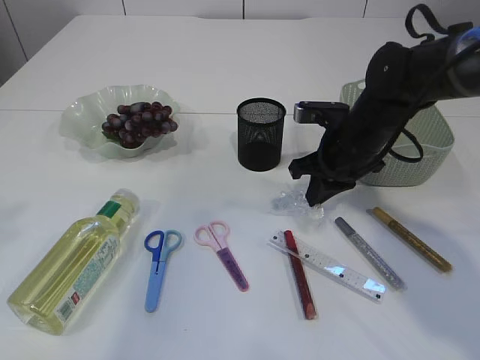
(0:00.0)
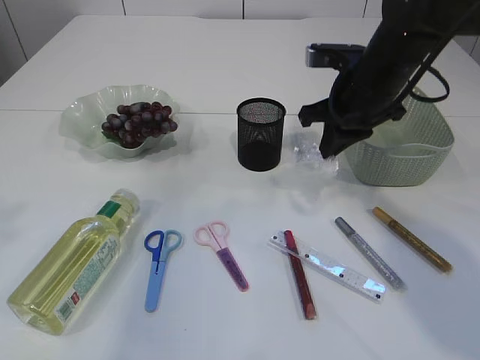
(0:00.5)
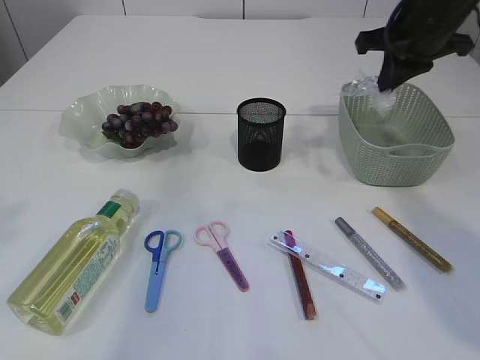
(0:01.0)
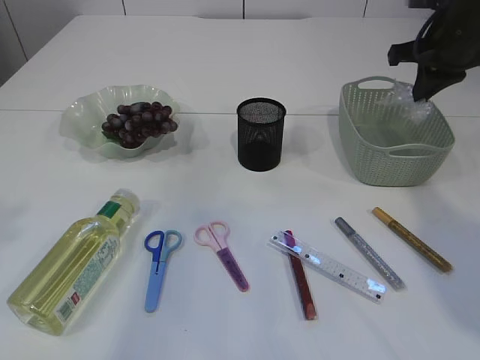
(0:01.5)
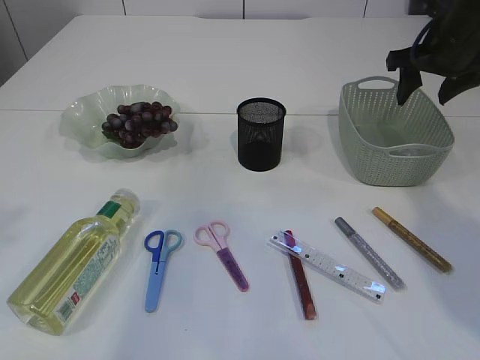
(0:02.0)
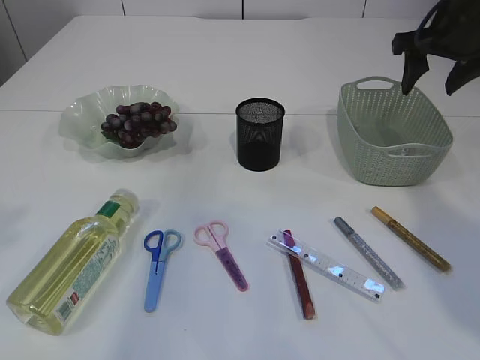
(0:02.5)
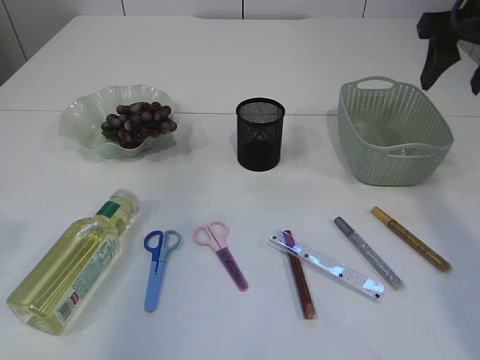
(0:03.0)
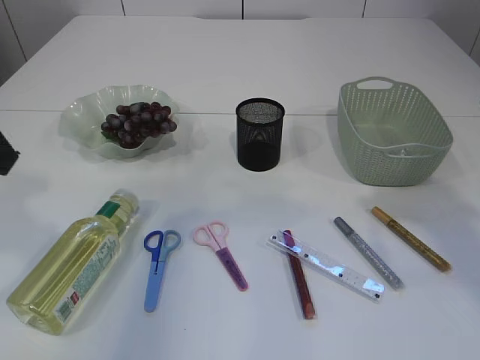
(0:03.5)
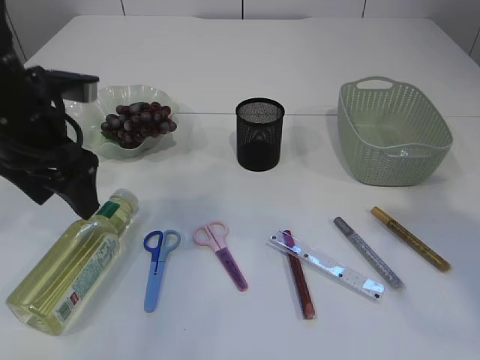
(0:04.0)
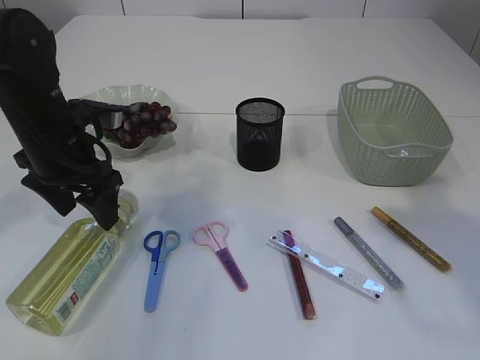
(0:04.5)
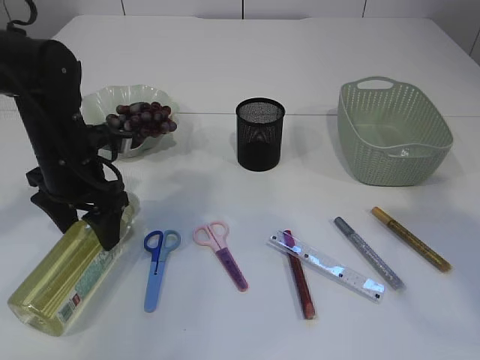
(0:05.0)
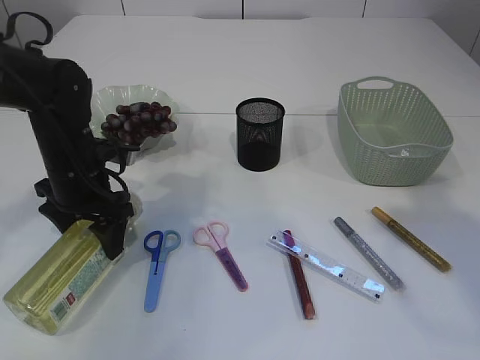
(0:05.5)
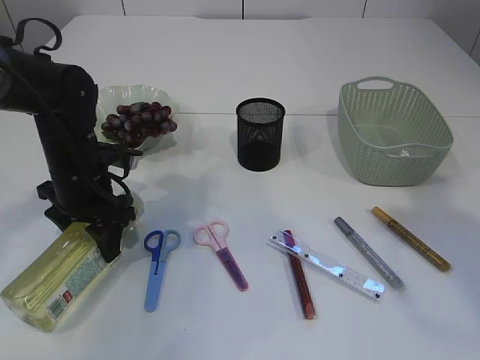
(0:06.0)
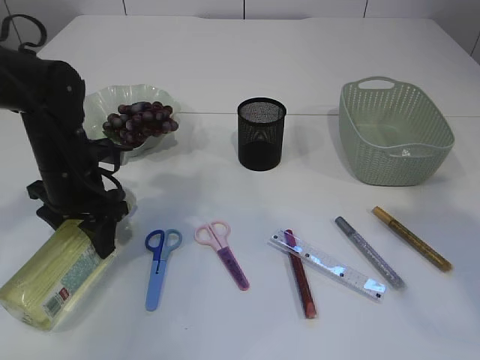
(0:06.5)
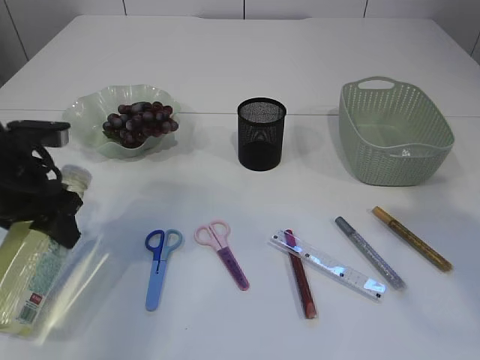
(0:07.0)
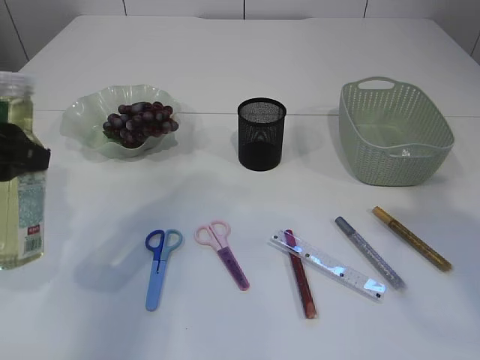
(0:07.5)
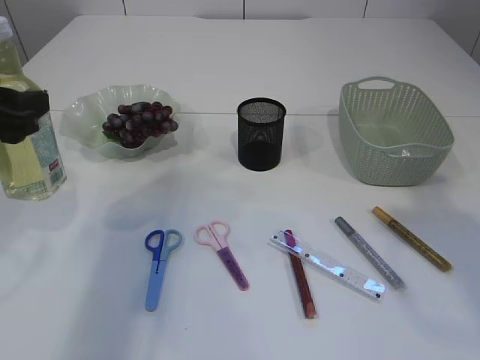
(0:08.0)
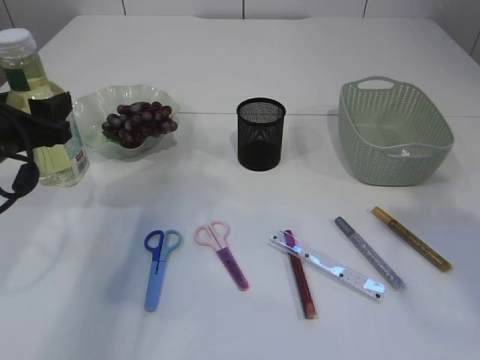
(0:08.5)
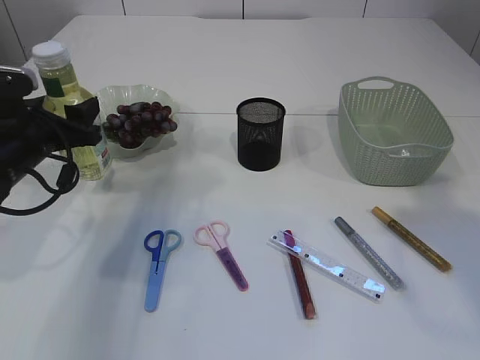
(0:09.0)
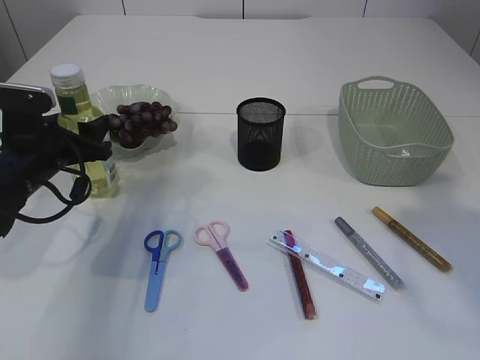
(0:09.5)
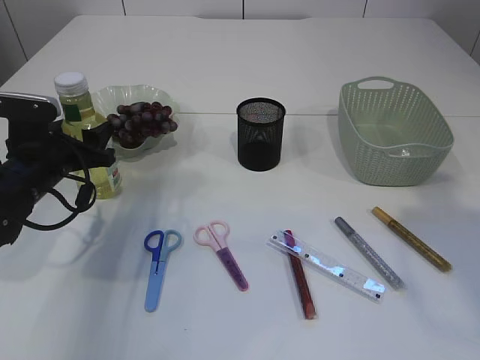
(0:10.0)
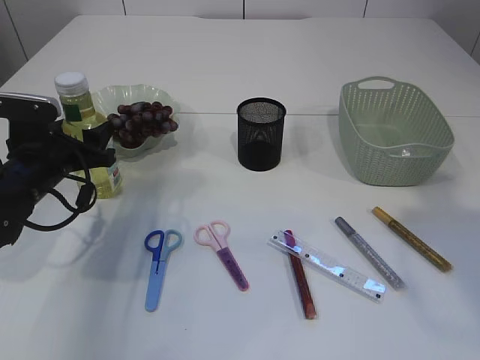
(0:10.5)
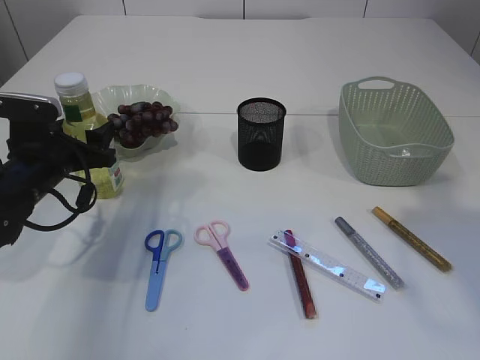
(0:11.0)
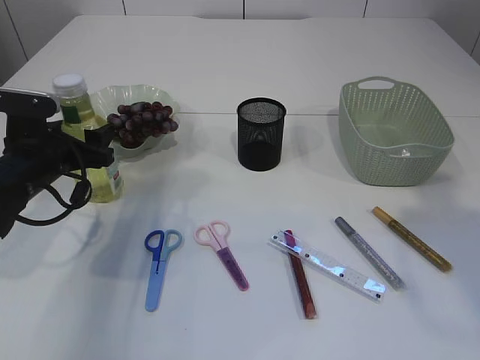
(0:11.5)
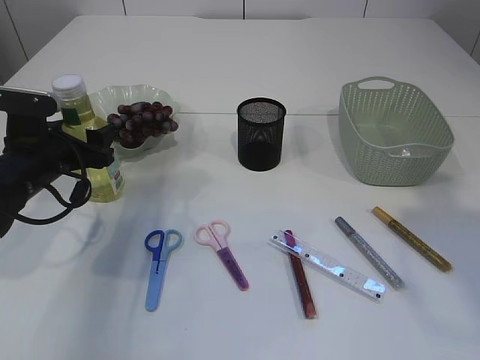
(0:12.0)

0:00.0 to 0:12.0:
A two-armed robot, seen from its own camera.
Step, 0:00.5 to 0:02.0: Place the plastic in the basket.
Step, 0:02.5 to 0:07.0: Pick up the bottle with the left arm.
0:00.0 to 0:02.0: The right gripper shifts approximately 20 cm to the right, upward and forward, and opens.
0:02.0 to 0:04.0: The right gripper heads backward and upward, covering roughly 30 cm. The left gripper heads downward, forward and to the right, covering some 20 cm, and opens.
0:04.0 to 0:06.0: The left gripper goes about 10 cm downward.
0:06.0 to 0:08.0: The left gripper heads upward, backward and to the left, covering some 15 cm.
0:08.0 to 0:10.0: The left gripper is displaced downward and forward by some 15 cm.
0:10.0 to 0:12.0: The two grippers keep their place.

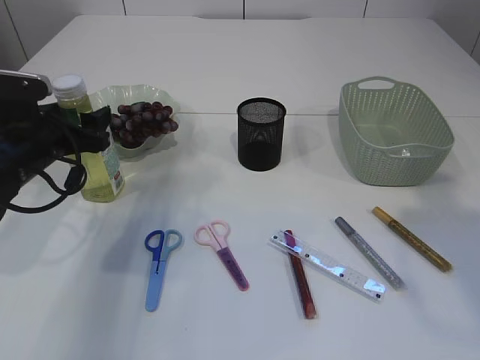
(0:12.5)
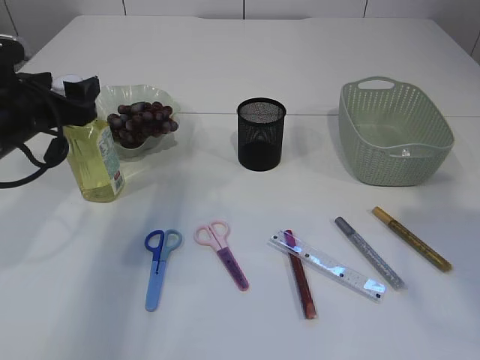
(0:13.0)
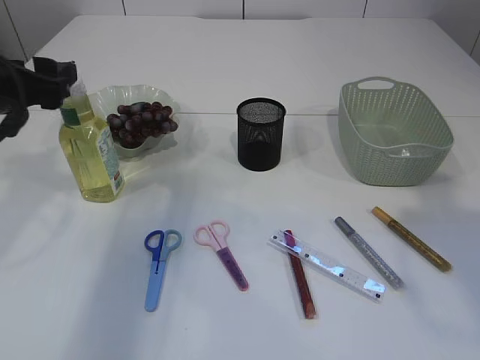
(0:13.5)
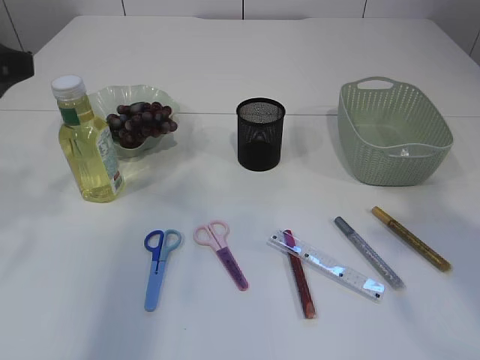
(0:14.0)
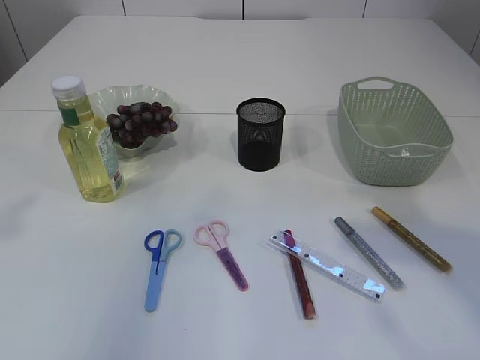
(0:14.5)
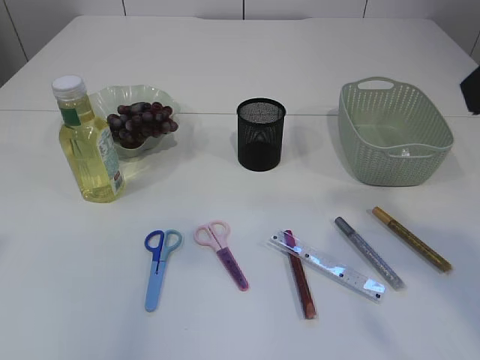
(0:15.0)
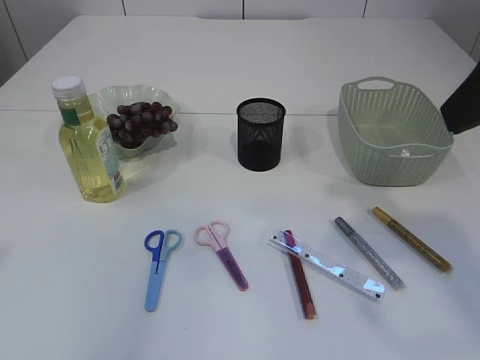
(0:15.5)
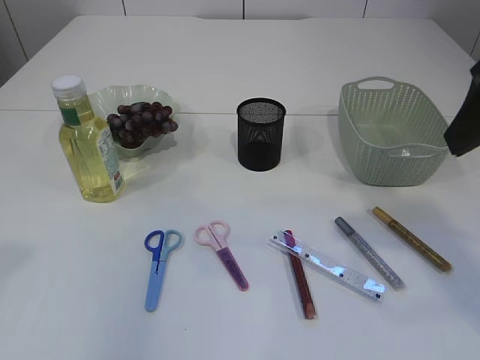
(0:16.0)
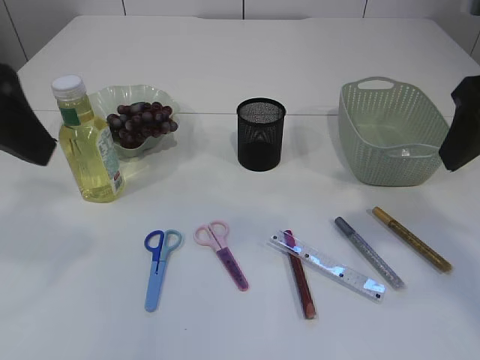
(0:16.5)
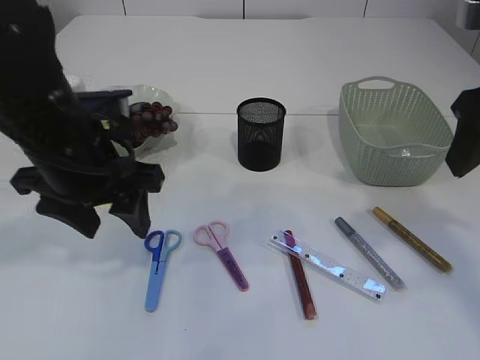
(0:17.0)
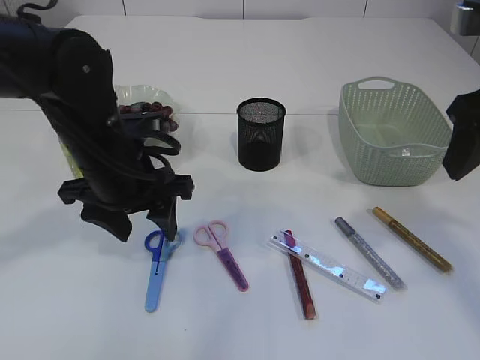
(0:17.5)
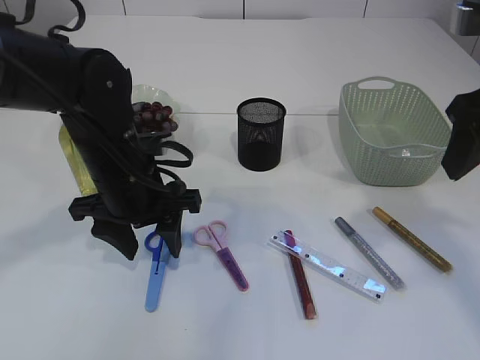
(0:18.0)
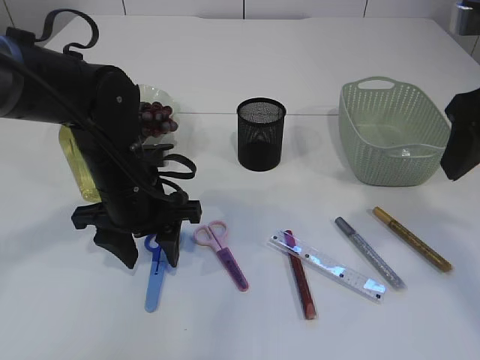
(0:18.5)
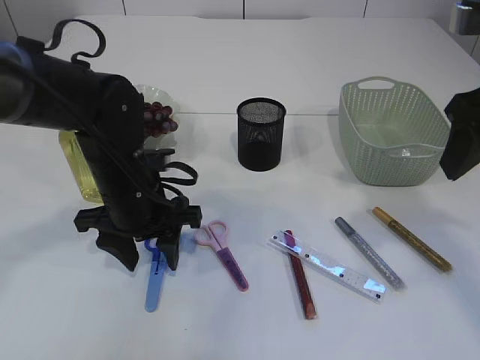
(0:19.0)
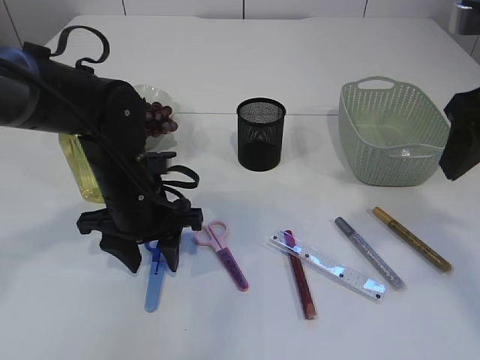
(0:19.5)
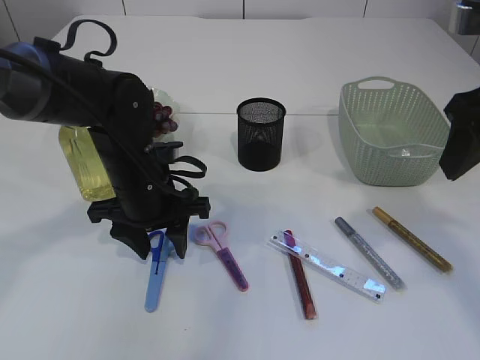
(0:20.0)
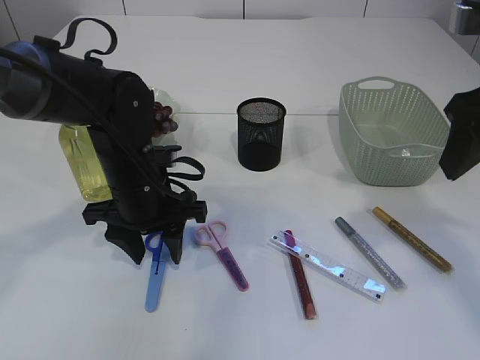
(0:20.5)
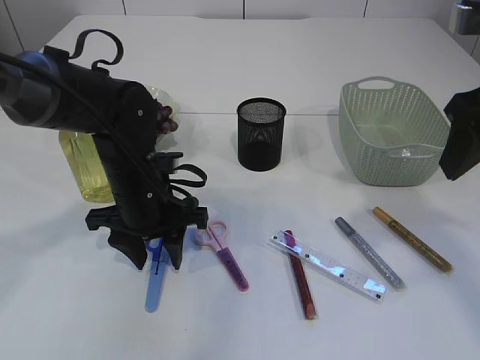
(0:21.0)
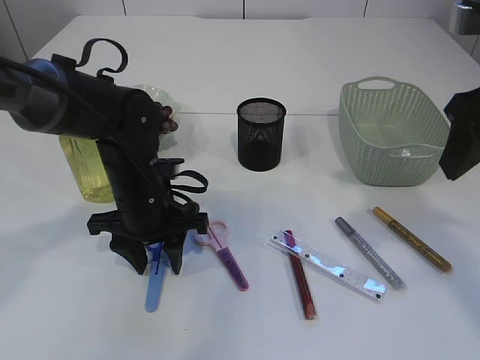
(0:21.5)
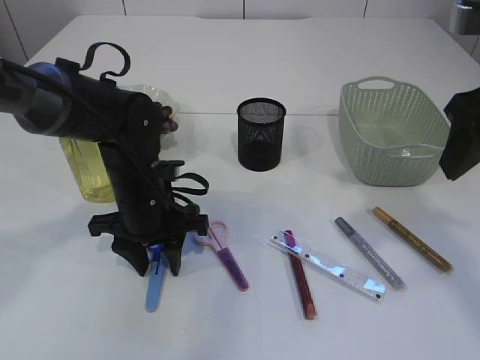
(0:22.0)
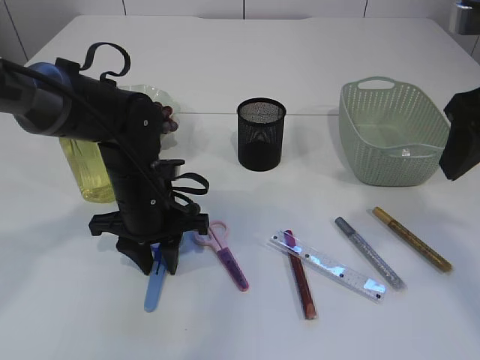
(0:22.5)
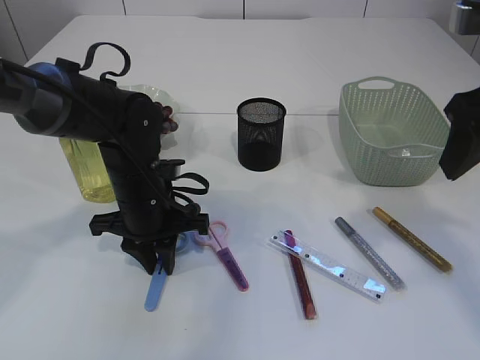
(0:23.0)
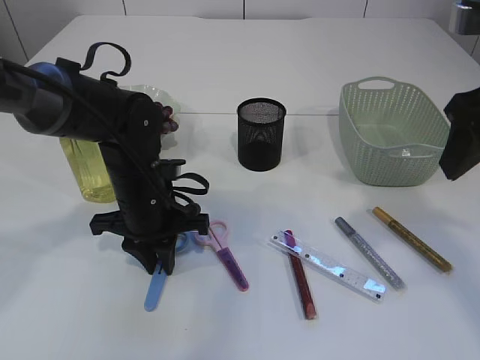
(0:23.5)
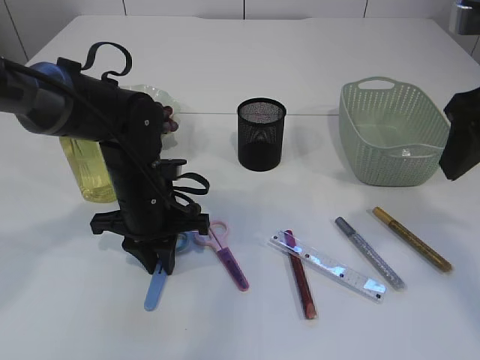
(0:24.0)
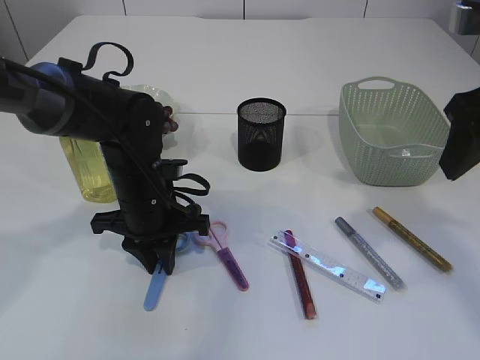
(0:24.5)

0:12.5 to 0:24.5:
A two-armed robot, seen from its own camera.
0:12.5 to 0:14.5: The left gripper heads upward and backward, covering approximately 30 cm. The right gripper ends up some 5 cm from where it was.
0:14.5 to 0:16.5: The right gripper goes about 10 cm forward and downward. The left gripper travels to the right by approximately 5 cm.
0:16.5 to 0:18.5: The left gripper shifts about 25 cm downward, forward and to the right.
0:18.5 to 0:22.5: There are only small adjustments of the grippers.
0:22.5 to 0:24.5: Neither gripper changes place.

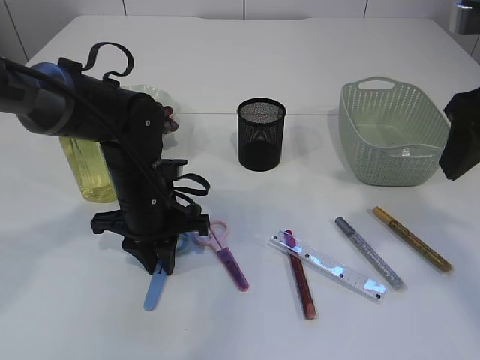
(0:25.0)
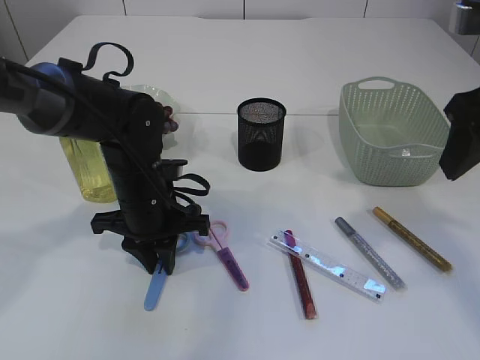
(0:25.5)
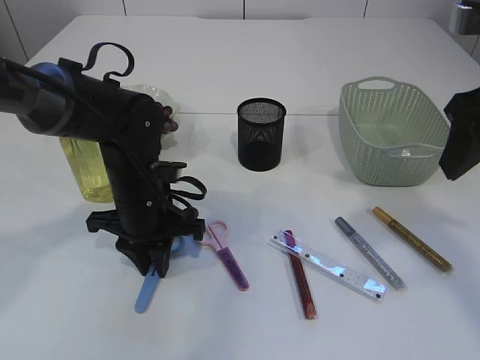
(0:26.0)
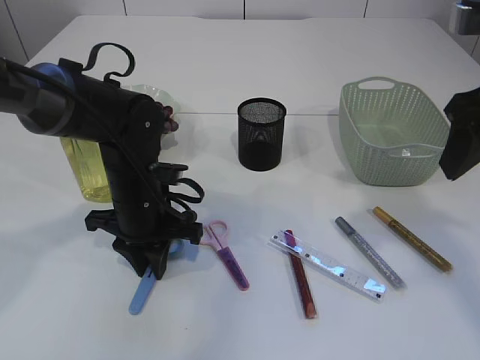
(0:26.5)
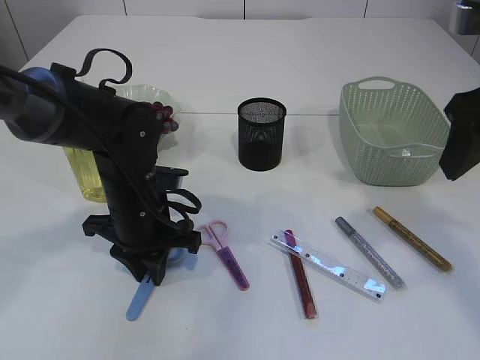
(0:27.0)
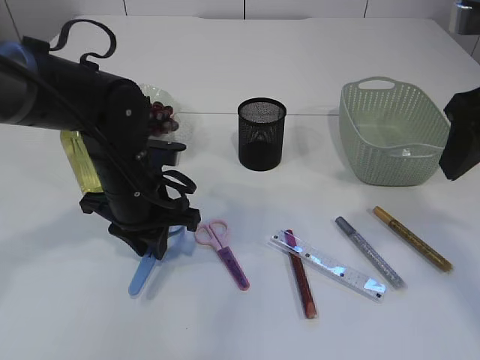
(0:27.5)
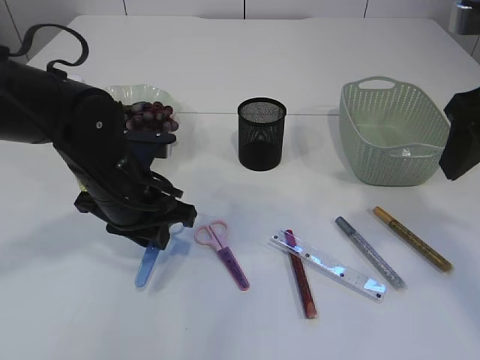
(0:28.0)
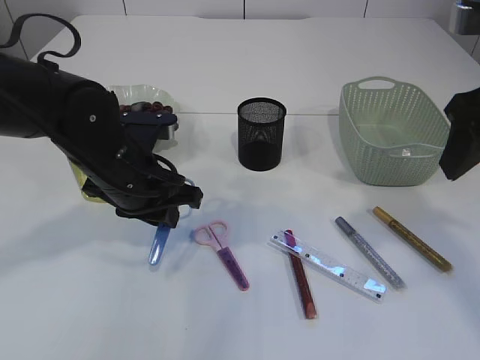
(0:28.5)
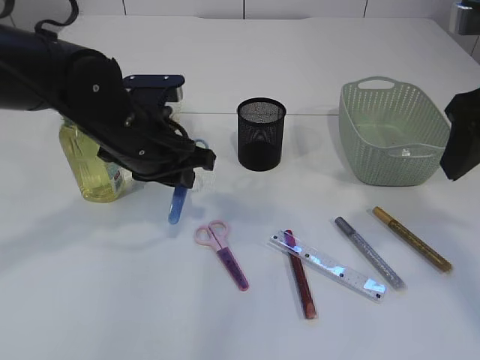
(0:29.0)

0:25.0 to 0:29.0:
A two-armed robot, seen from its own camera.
Step, 0:25.0 to 0:28.0: pick up the blue scissors.
0:25.0 to 0:27.0: The grippers make only small movements.
0:27.0 to 0:29.0: The left gripper moves upward, some 10 cm.
